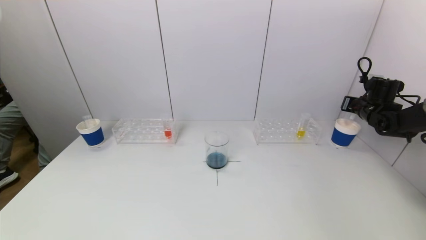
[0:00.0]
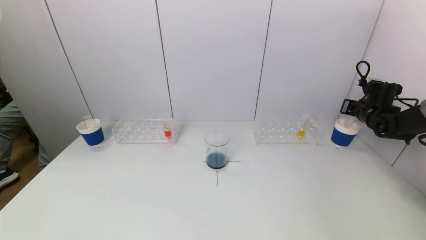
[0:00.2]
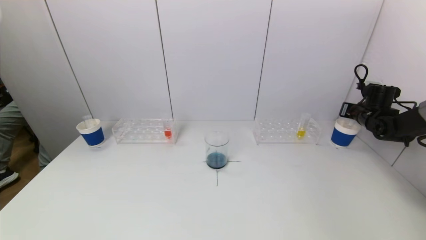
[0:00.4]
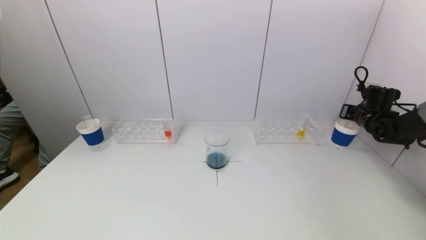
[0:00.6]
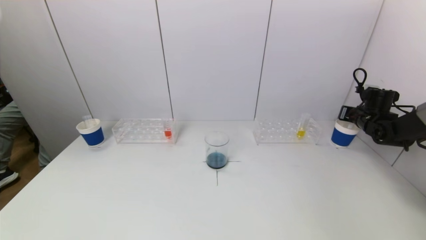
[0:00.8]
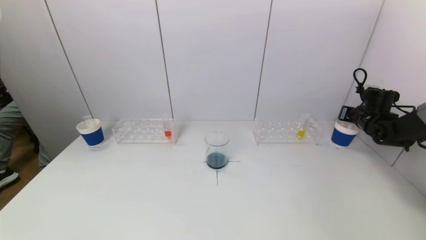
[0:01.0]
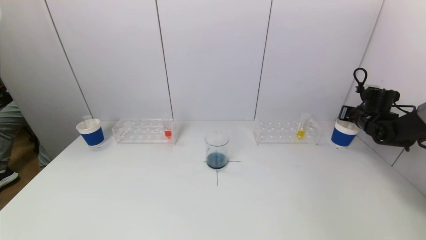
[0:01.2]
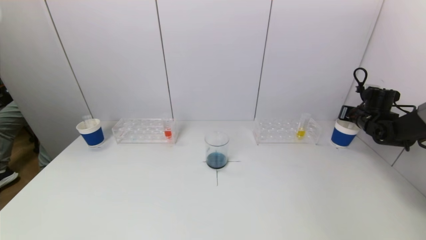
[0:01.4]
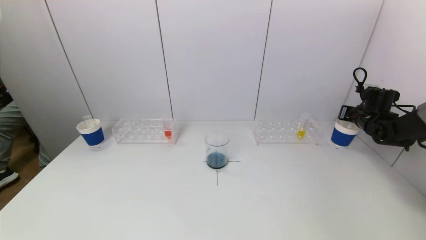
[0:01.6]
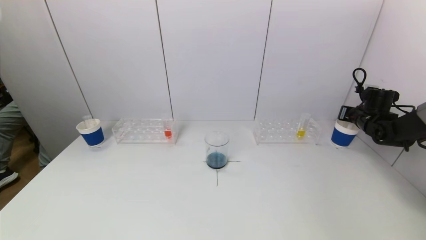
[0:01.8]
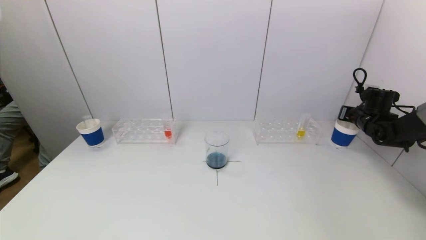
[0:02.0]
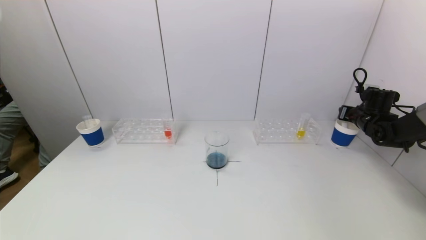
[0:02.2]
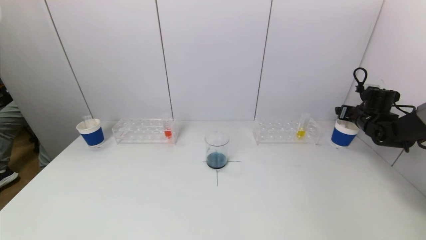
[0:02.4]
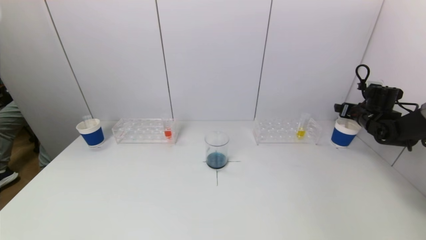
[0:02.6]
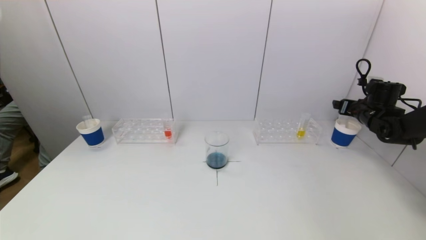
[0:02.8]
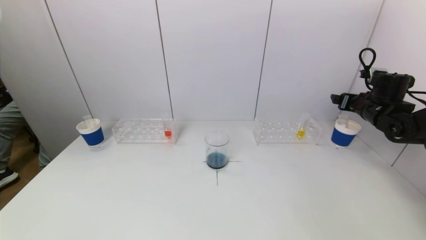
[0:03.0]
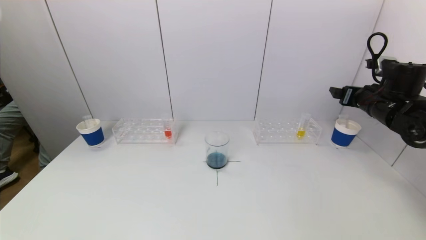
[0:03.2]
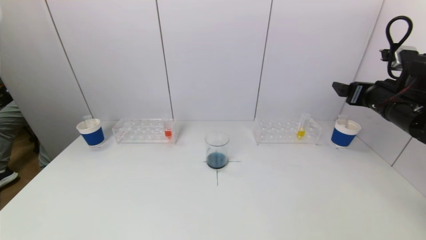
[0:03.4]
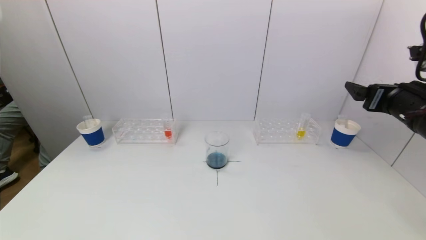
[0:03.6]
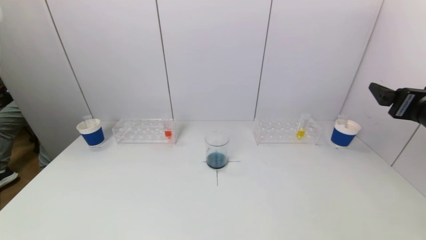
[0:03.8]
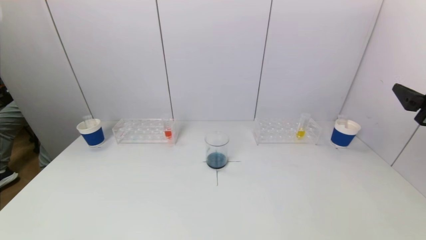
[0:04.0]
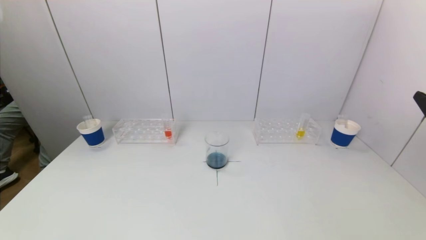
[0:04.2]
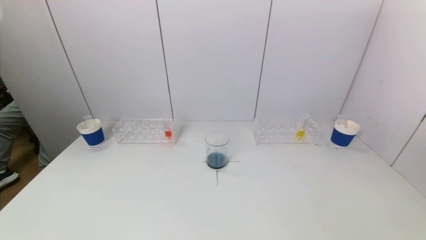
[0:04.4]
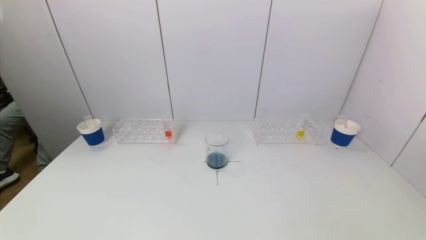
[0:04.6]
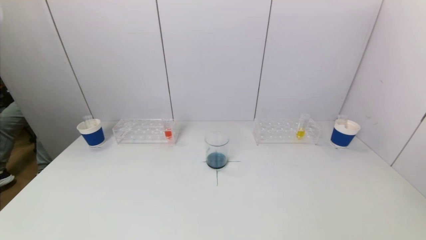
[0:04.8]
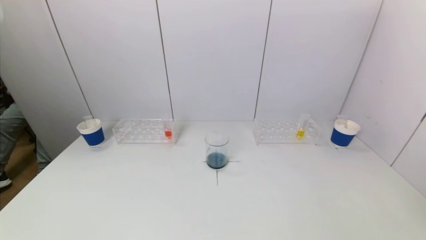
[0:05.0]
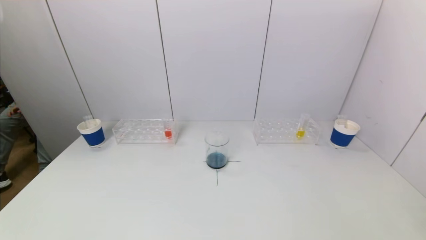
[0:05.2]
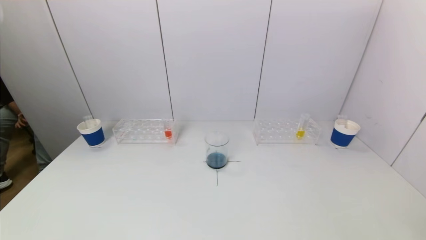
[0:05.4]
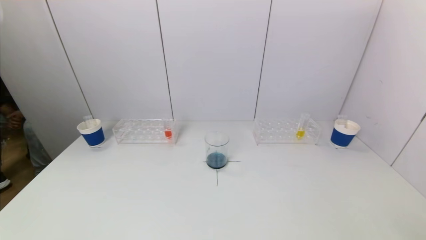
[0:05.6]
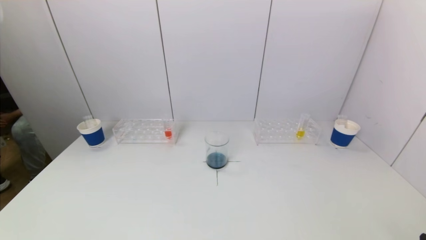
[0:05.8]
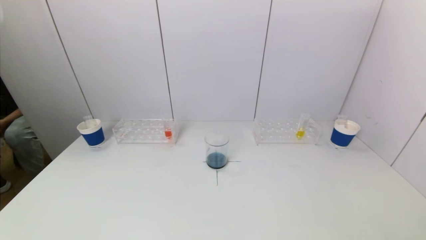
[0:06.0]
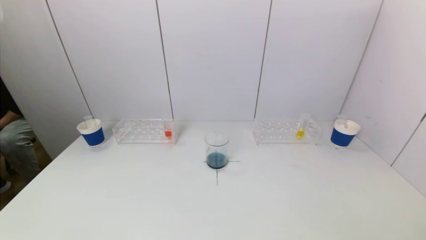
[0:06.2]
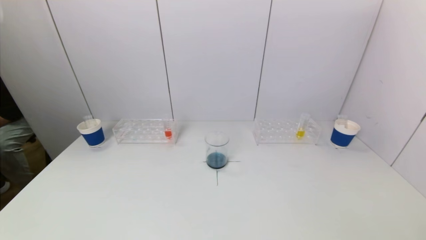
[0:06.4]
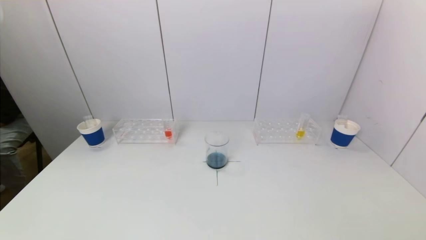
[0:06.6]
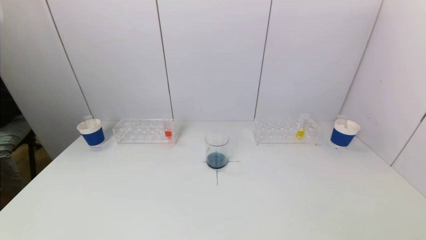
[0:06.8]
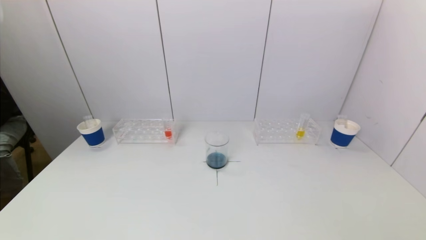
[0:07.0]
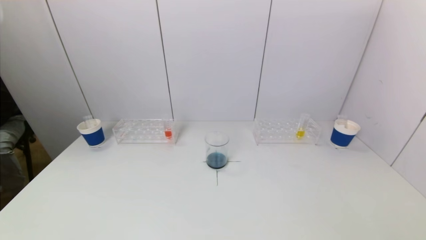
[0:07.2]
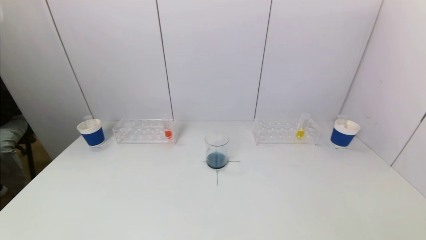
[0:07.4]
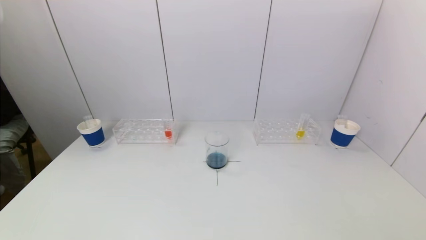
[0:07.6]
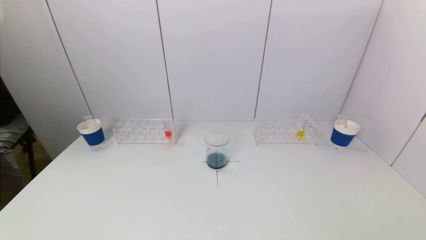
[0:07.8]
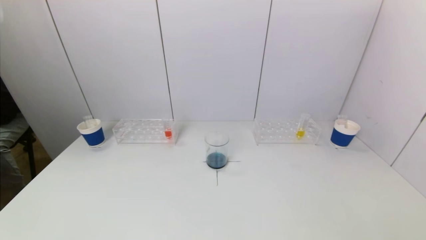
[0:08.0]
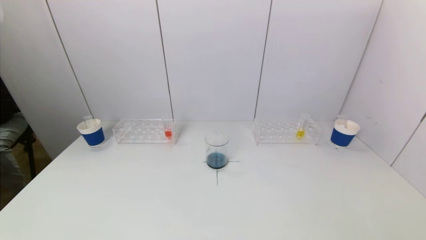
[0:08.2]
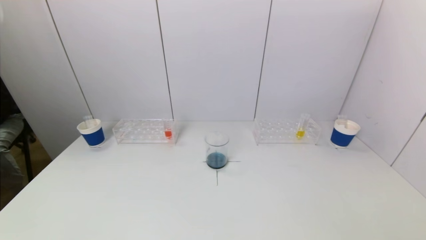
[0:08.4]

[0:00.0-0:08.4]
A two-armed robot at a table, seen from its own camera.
Task of the whole recording: pick up a test tube with pigment on left test tube rack and a test tube with pigment on right test tube rack by grippers and pour them into the beaker.
Step, 0:00.0 to 0:02.6: Place the test tube into the paper cup with the right gripper.
0:00.0 to 0:01.4: The grippers stay close to where they were, moving slightly.
0:01.4 to 0:02.8: The right gripper opens.
0:02.8 to 0:04.2: The right gripper heads backward, covering some 30 cm.
0:04.2 to 0:05.6: The right gripper shifts approximately 20 cm backward and downward.
0:05.6 to 0:07.0: The grippers move only a little.
0:07.0 to 0:08.4: The two grippers keep their place.

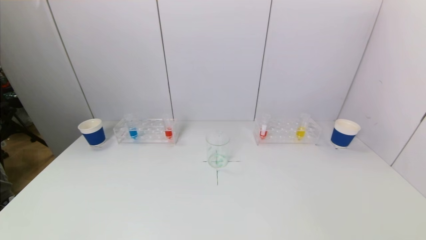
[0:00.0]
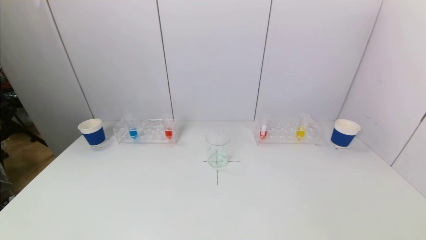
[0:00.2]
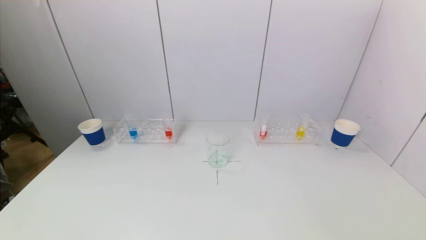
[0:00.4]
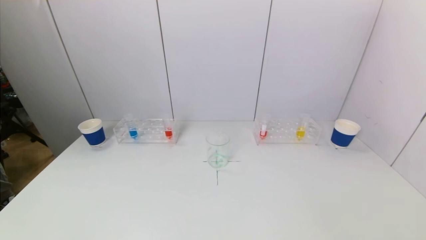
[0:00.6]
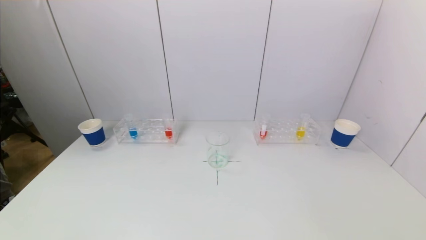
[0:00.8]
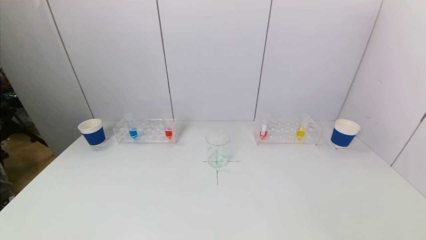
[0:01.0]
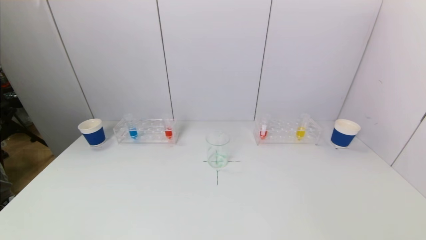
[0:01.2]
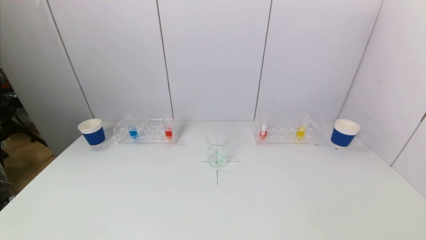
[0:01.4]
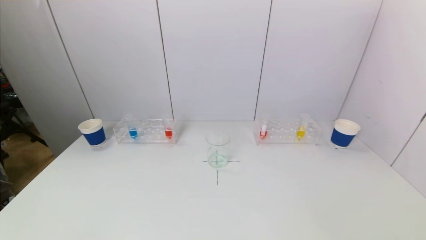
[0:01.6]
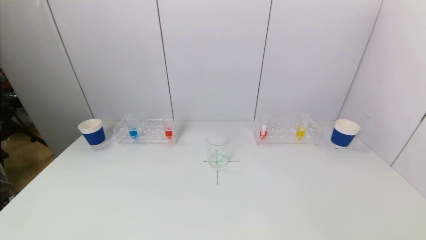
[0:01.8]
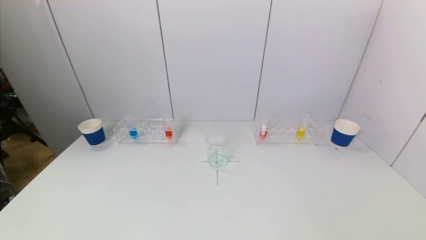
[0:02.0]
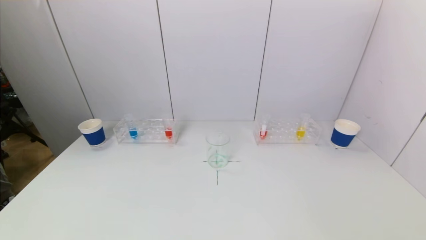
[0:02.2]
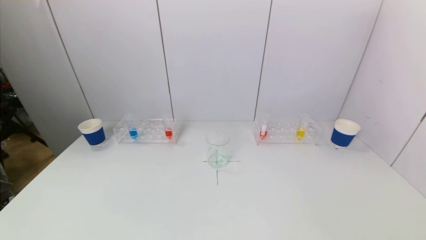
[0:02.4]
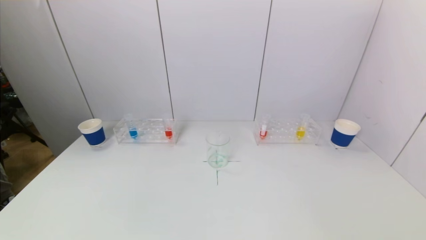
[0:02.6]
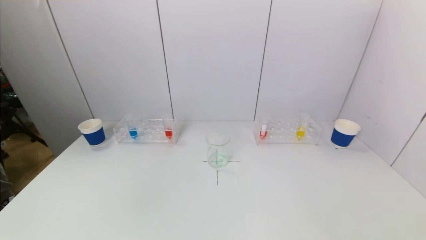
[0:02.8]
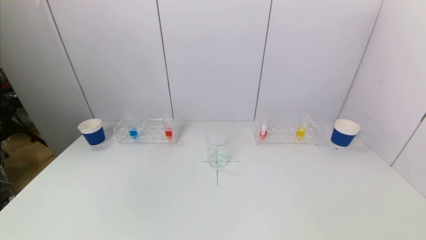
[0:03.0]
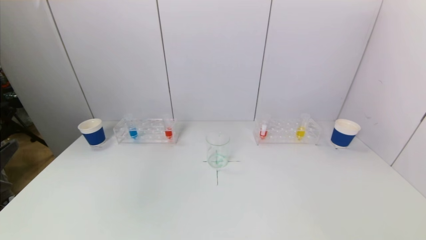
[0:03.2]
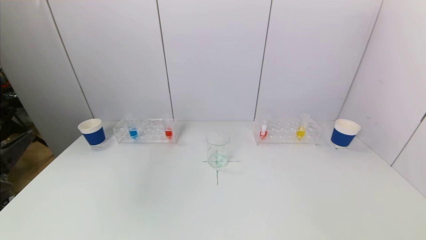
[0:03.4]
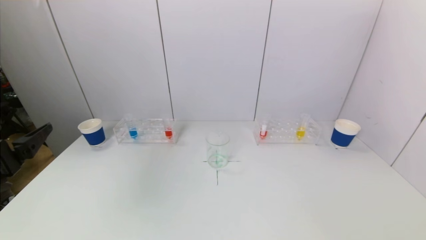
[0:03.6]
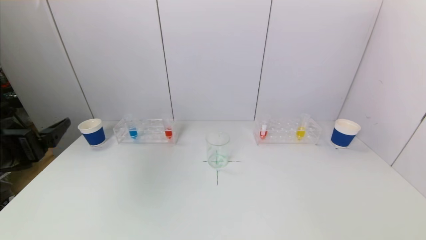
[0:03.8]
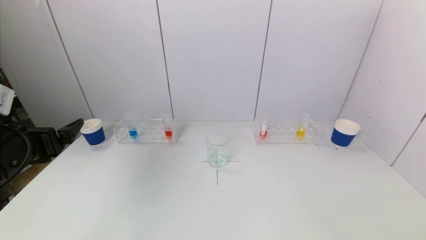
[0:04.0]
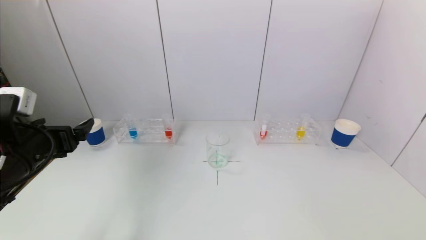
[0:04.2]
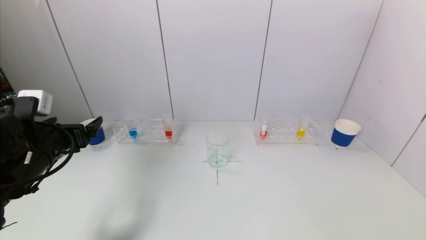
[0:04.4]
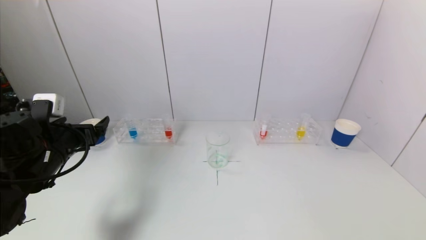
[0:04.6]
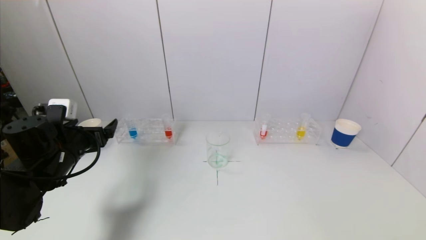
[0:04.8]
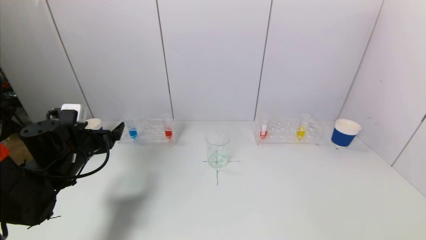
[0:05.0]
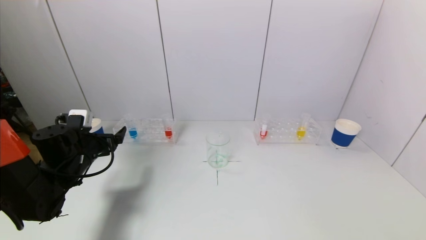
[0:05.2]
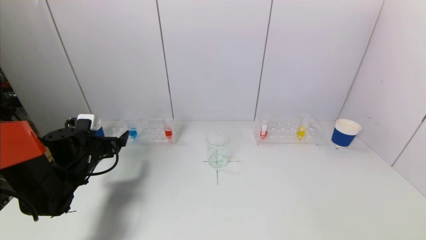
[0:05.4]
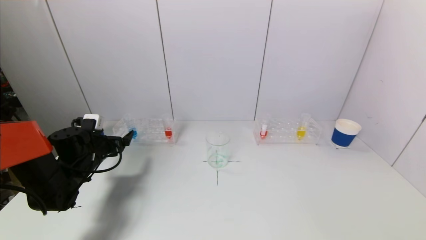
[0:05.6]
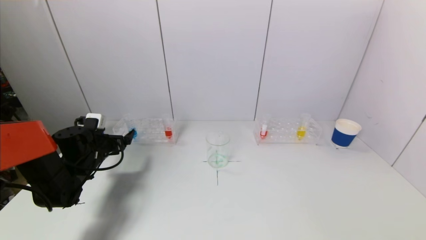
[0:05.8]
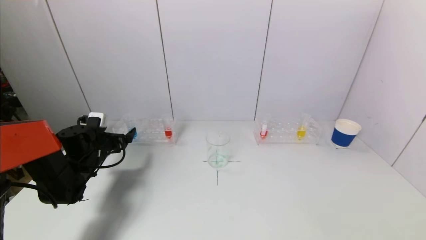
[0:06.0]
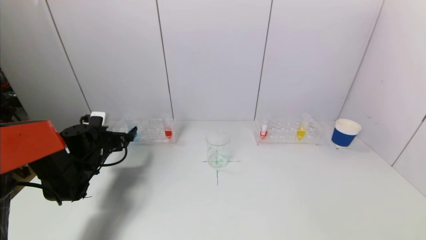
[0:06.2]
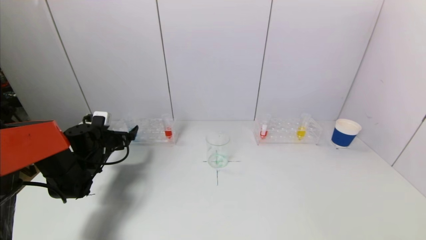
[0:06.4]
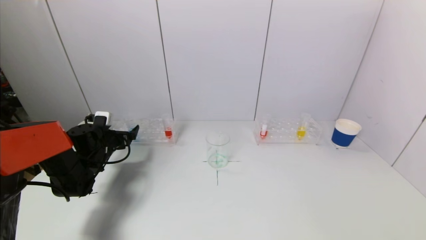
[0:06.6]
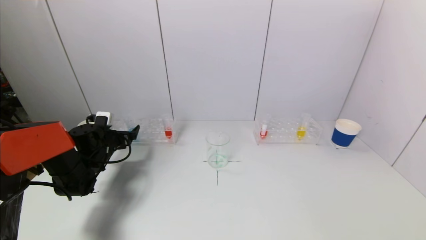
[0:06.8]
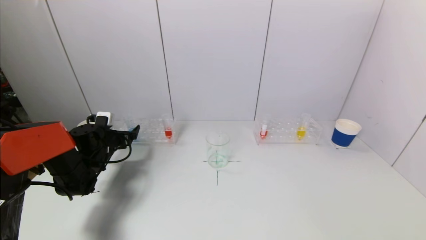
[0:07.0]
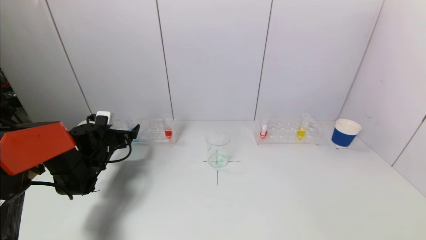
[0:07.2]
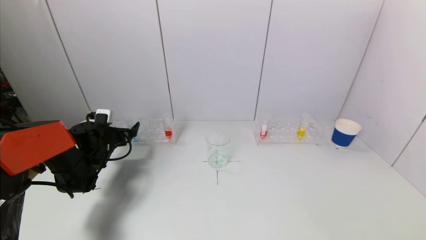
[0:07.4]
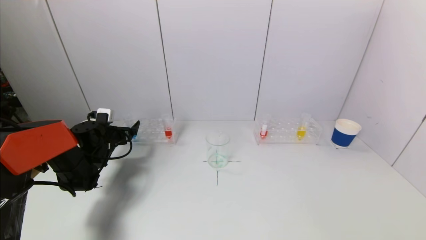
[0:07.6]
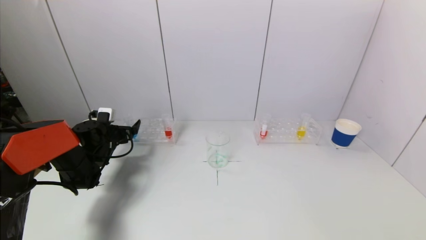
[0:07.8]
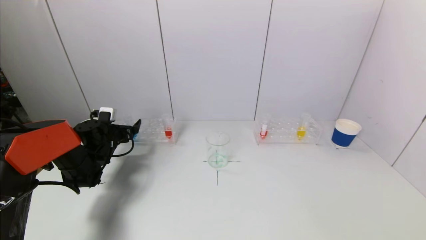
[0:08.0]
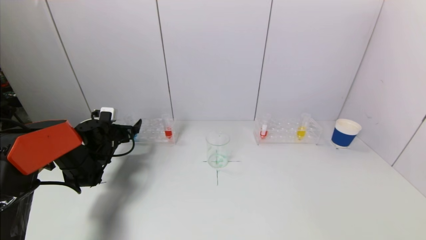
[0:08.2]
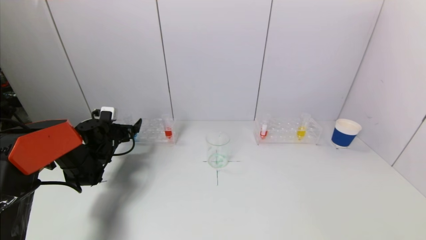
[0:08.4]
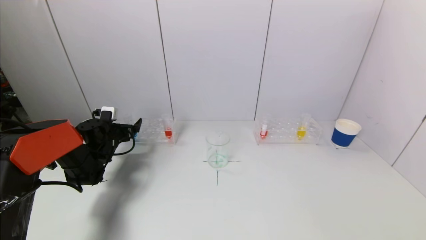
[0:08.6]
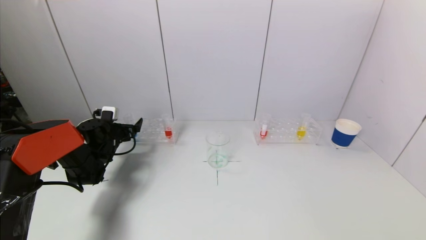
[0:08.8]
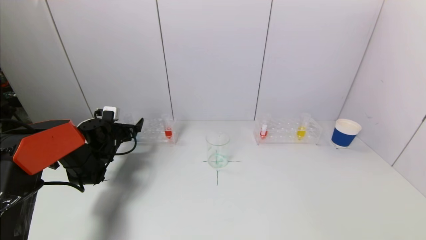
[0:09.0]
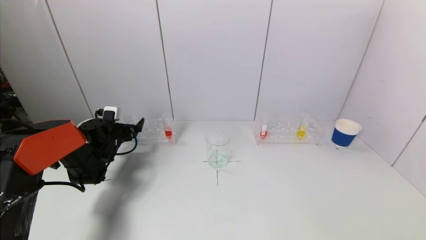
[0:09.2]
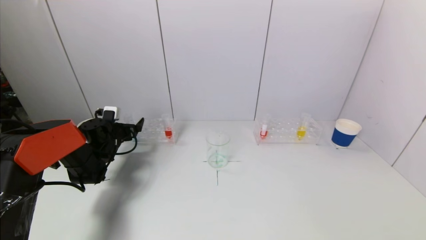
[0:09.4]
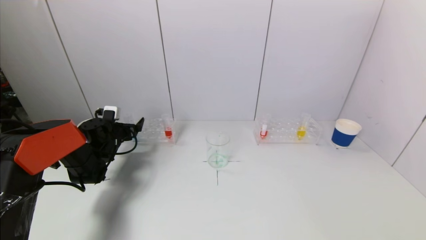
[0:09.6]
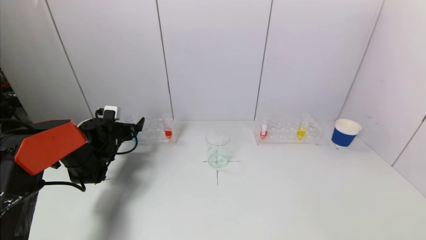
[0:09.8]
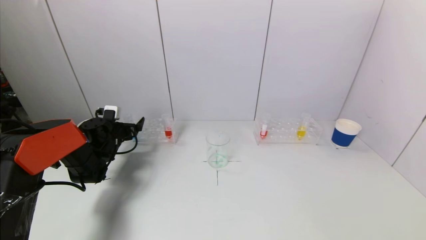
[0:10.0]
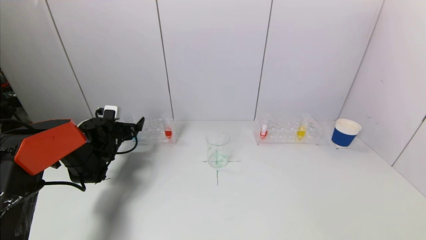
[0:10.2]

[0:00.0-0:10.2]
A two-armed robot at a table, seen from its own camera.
Task of the whole recording: pick up a test tube with pigment on left test tube rack and a test tube with pigment on right test tube rack by grippers and pour them into the beaker.
0:03.0 to 0:04.4: The left gripper heads forward, covering some 20 cm.
0:04.4 to 0:05.8: The left gripper moves forward and downward, roughly 15 cm.
0:05.8 to 0:07.2: The grippers move only a little.
0:07.2 to 0:08.8: There are only small adjustments of the grippers.
0:08.8 to 0:10.2: Both grippers stay put.
